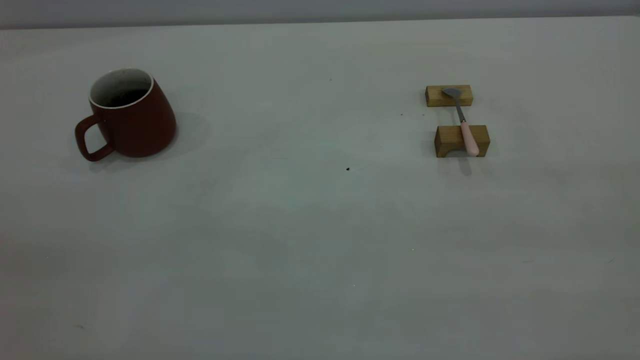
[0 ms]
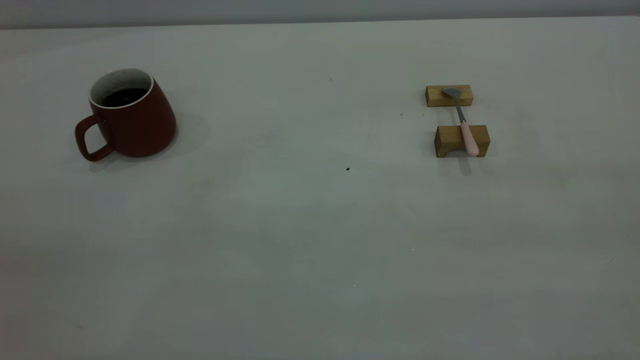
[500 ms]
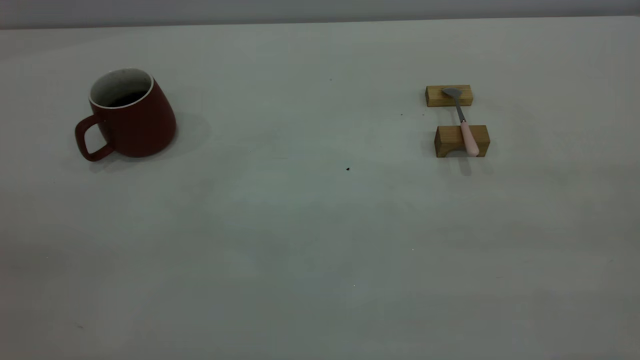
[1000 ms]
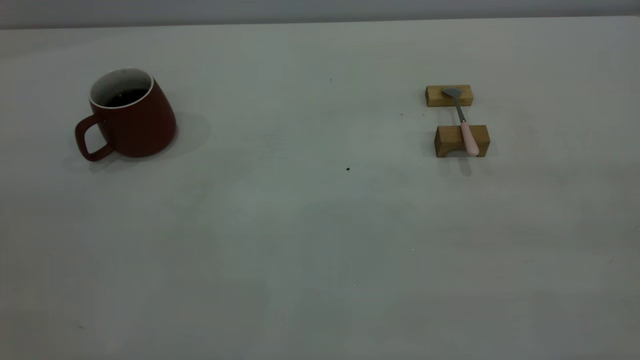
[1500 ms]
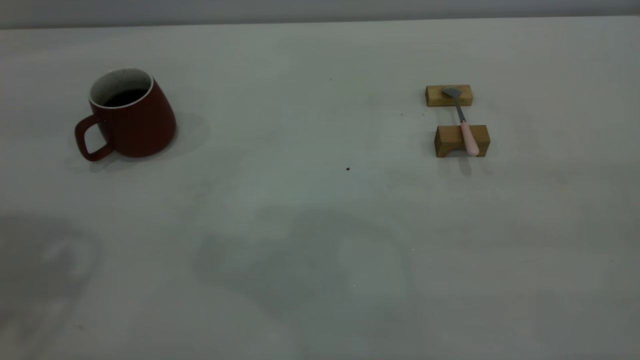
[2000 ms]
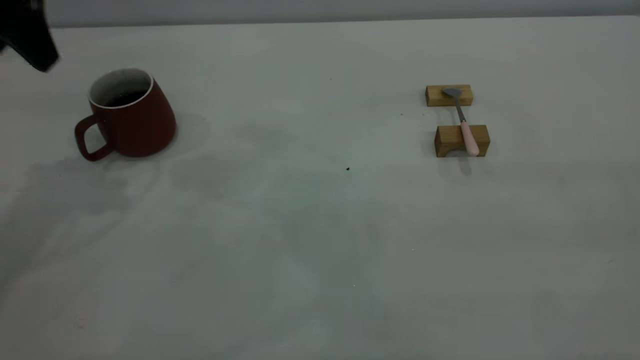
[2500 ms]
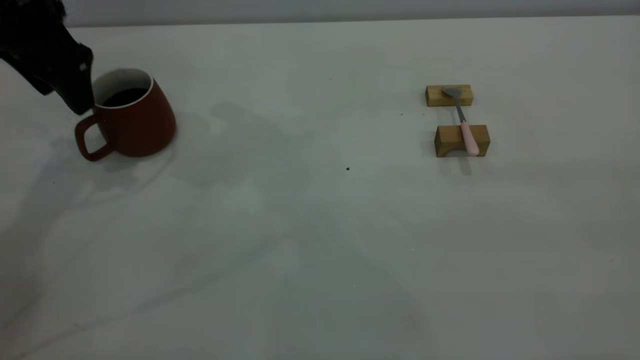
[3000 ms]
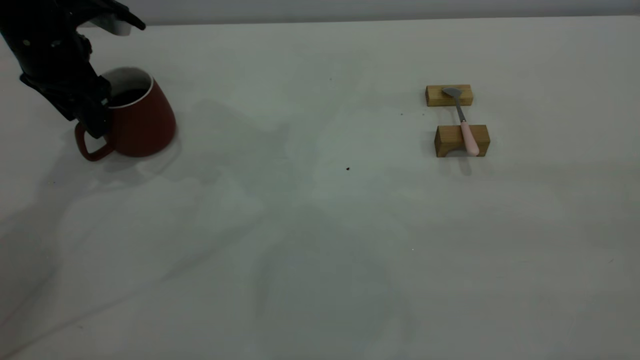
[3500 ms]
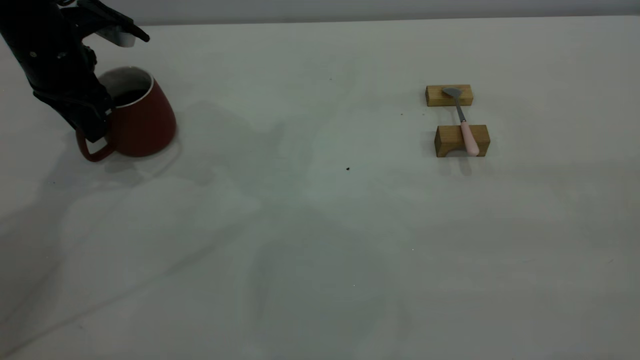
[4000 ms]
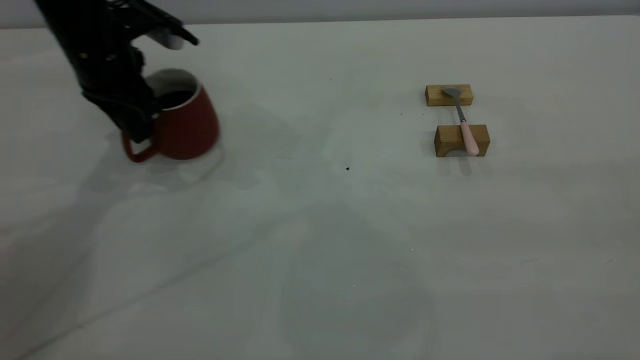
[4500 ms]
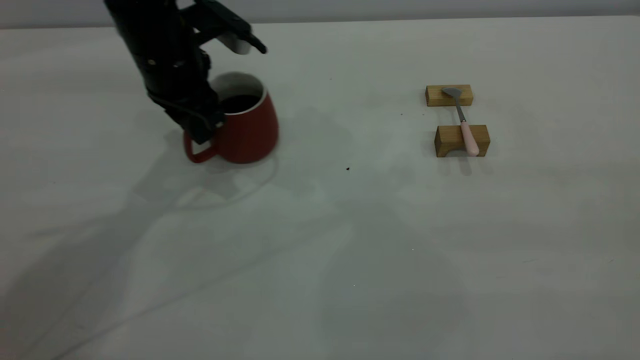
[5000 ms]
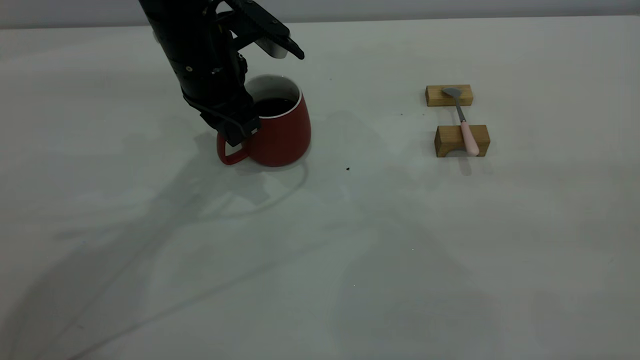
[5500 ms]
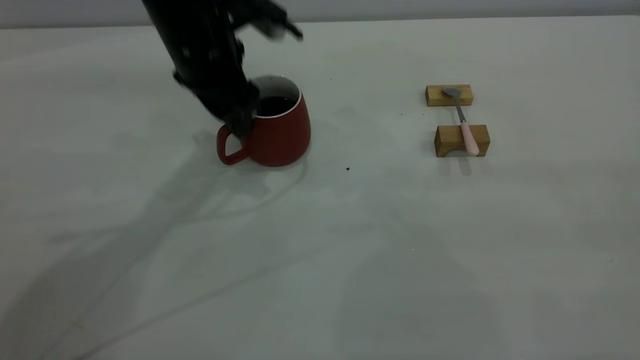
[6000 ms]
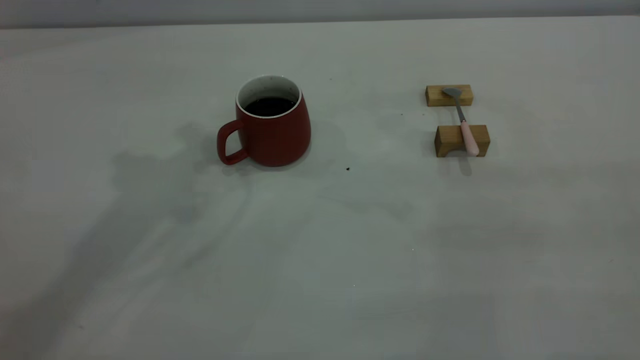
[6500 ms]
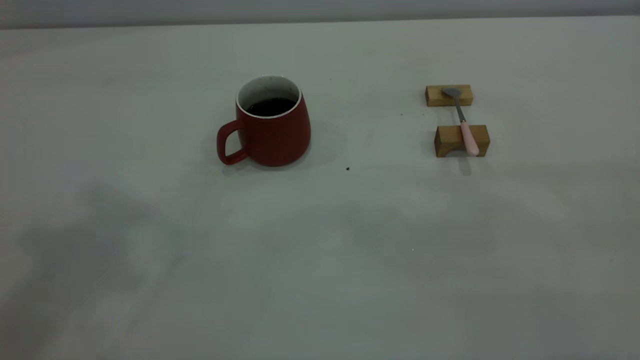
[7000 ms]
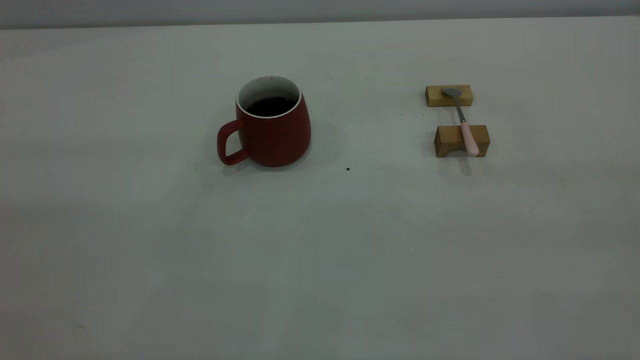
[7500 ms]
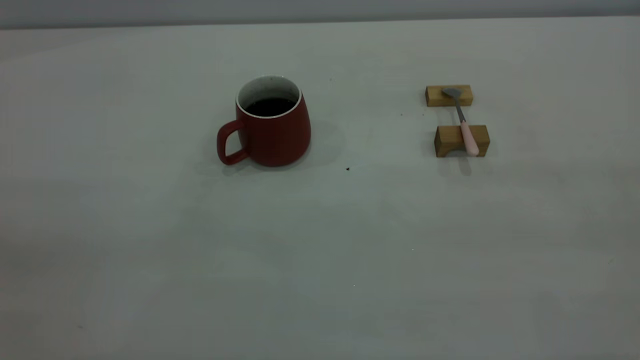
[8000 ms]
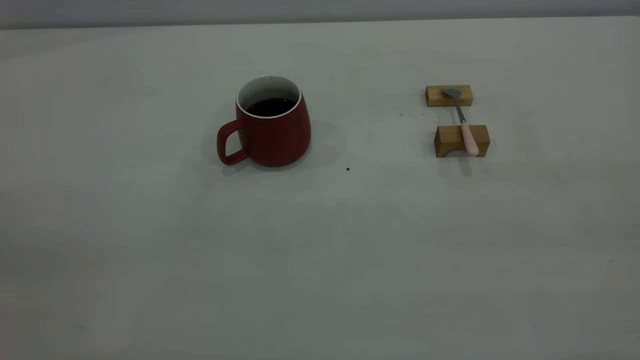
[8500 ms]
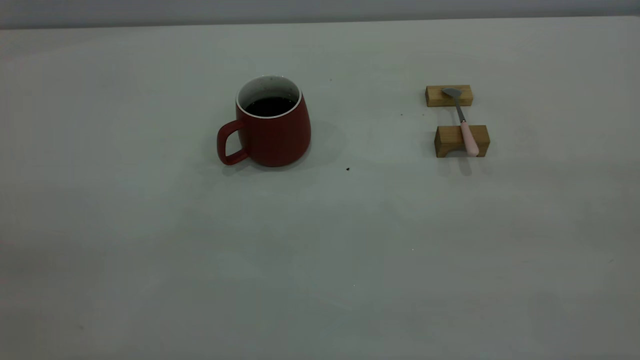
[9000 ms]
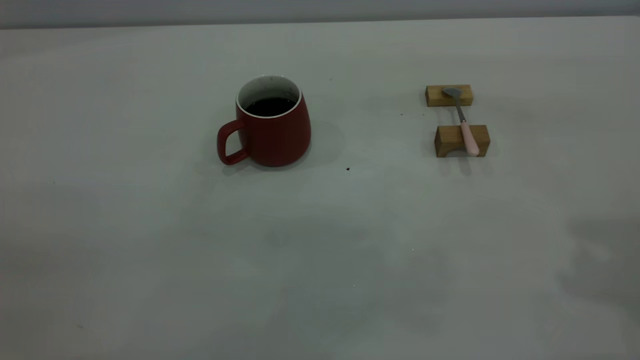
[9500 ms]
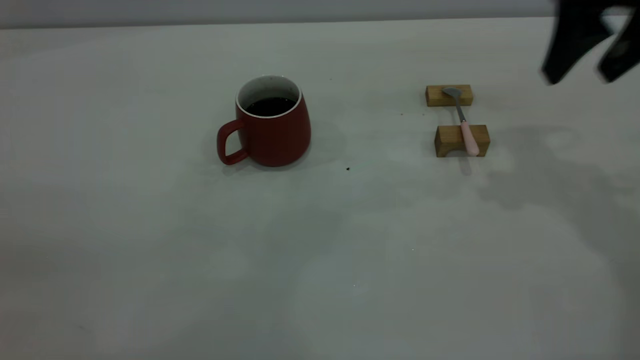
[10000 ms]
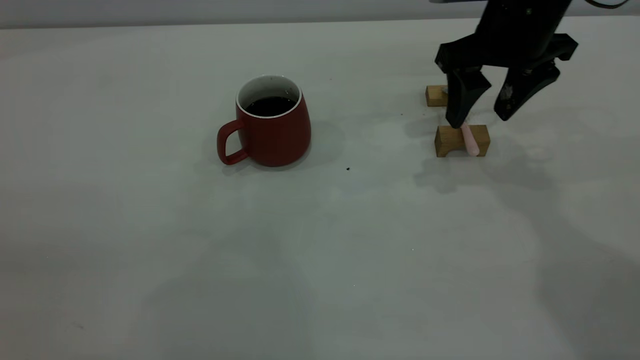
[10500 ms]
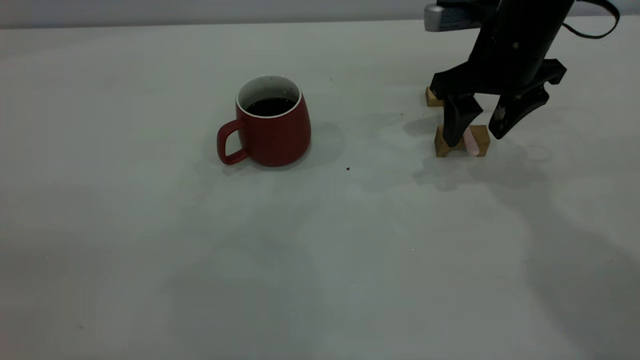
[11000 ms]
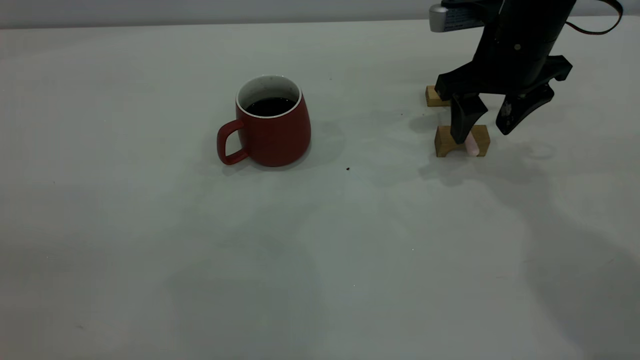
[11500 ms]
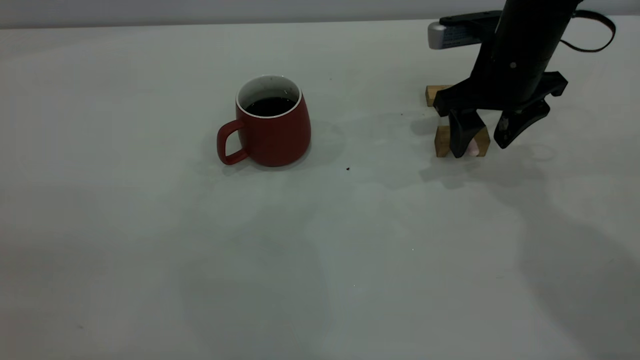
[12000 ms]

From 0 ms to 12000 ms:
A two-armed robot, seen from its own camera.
Step, from 0 ms to 6000 ms: Move the cup with coffee to the center of view.
From 2000 ms to 4000 ms: The left gripper moves downward and forward, about 30 cm, and closes its fingers.
From 4000 ms to 6000 ms: The left gripper is displaced to the right by about 15 cm, and opens up.
From 6000 ms to 8000 ms: The left gripper moves backward, upward and to the left, about 50 cm, and closes its fingers.
From 8000 ms to 10000 ms: The right gripper shifts approximately 35 cm forward, and opens up.
From 10000 ms to 12000 ms: The right gripper moves downward and to the left, roughly 15 cm.

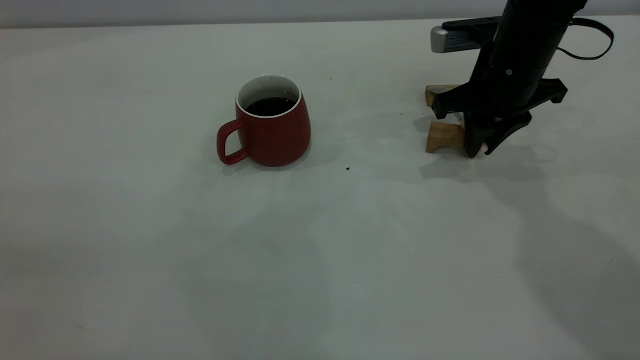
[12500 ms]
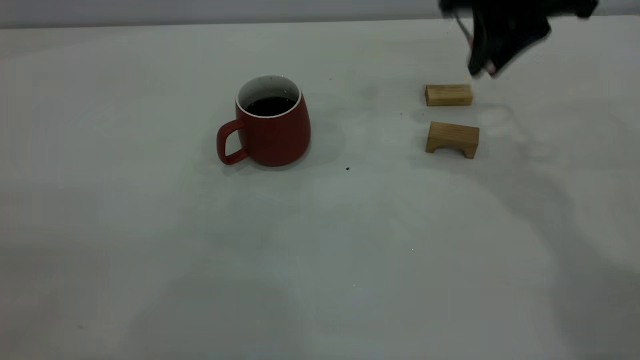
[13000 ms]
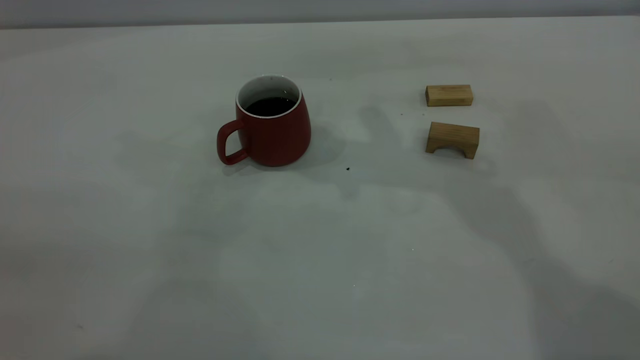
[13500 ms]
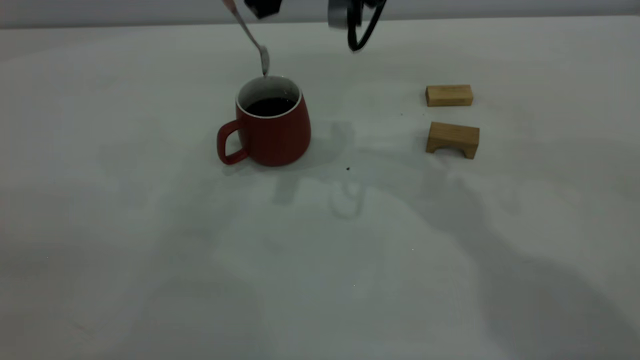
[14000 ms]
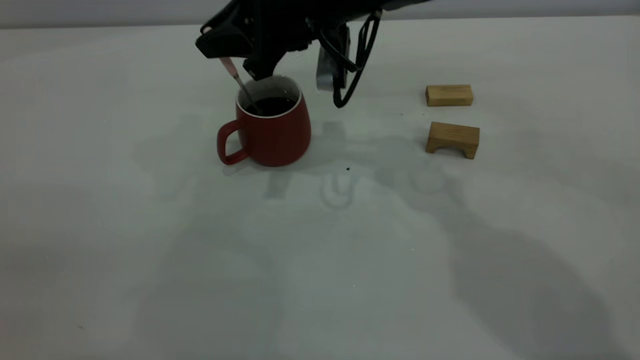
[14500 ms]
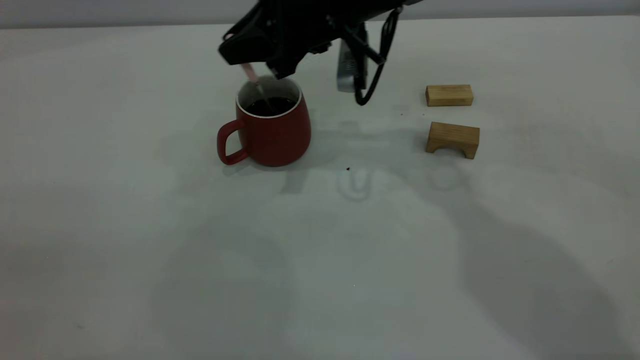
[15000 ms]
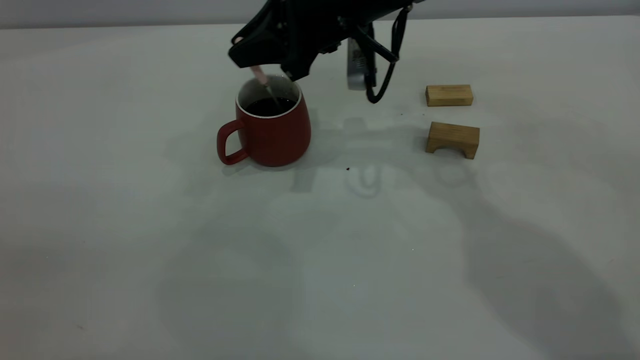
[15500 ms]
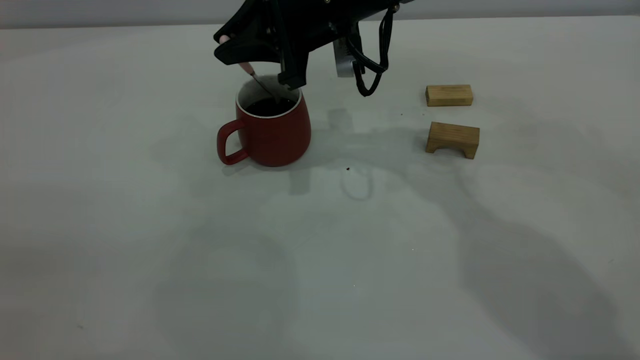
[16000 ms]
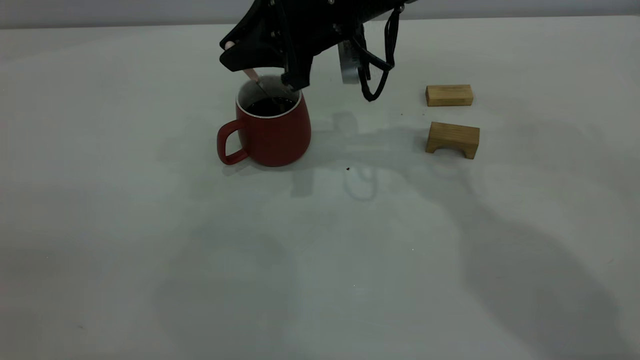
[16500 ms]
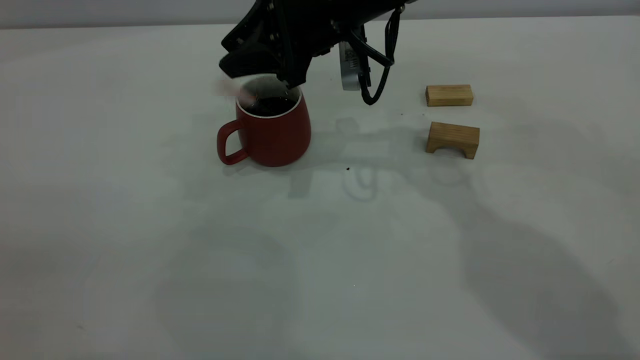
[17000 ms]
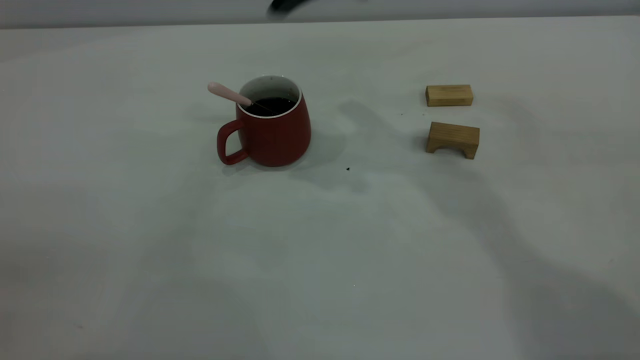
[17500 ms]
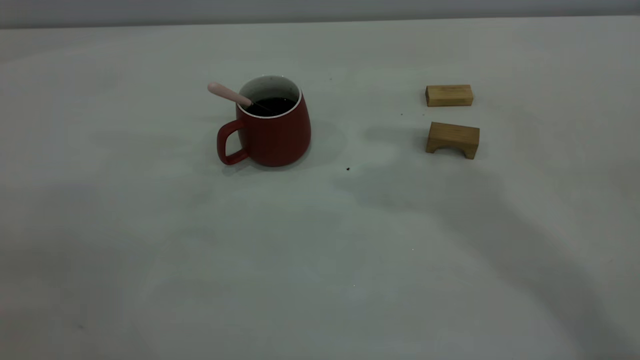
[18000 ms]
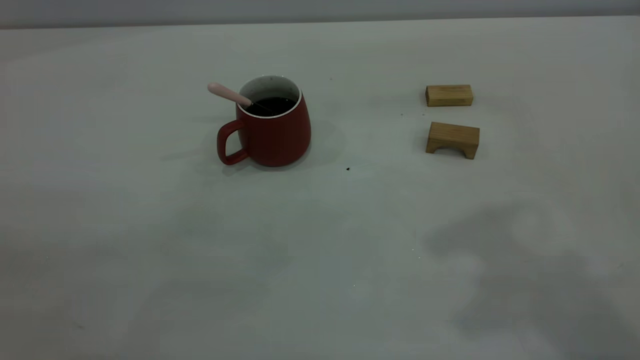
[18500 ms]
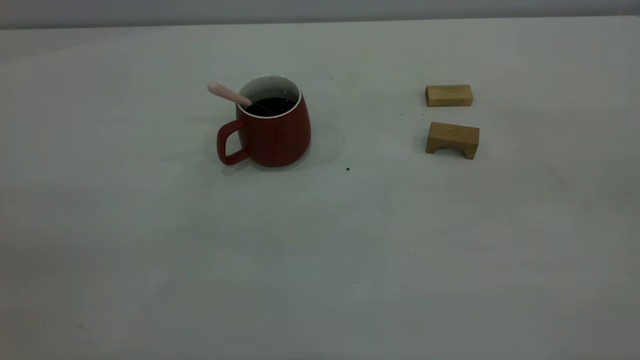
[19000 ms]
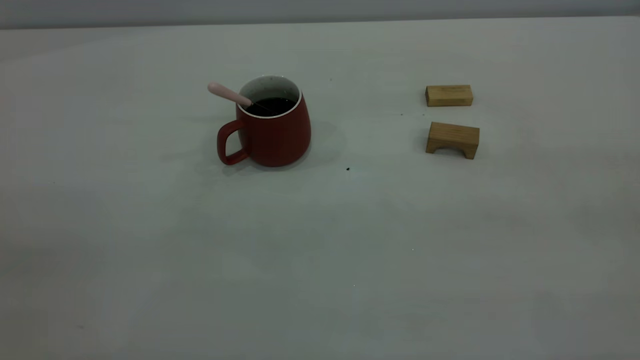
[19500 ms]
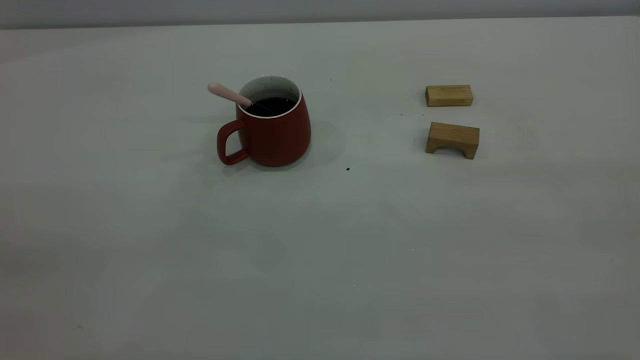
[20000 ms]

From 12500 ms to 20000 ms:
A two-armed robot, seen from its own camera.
Step, from 13000 ms to 17000 ms: Stir the coffee in the cup.
From 12500 ms to 14500 ms: The right gripper travels to the left by some 20 cm.
From 14500 ms to 16500 ms: The grippers move only a little.
From 16500 ms to 18000 ms: The right gripper goes some 30 cm upward, and opens, then closes once more.
